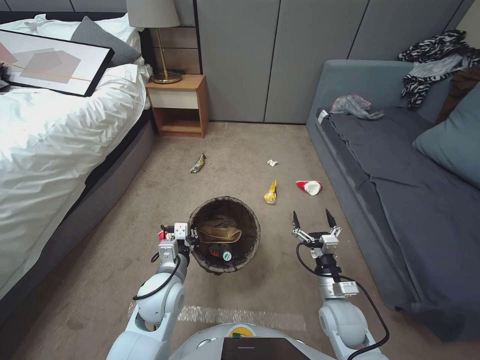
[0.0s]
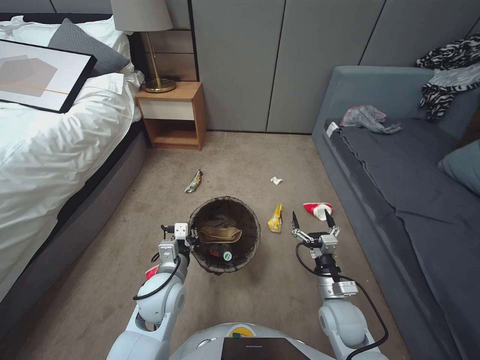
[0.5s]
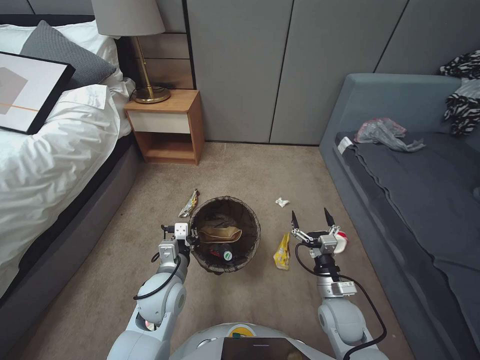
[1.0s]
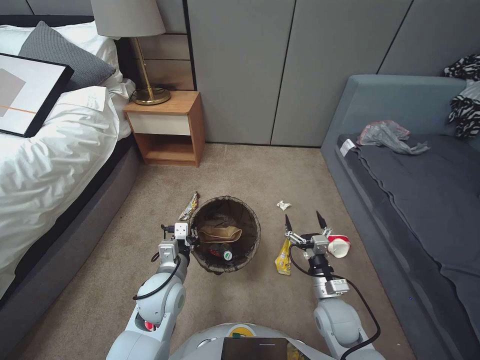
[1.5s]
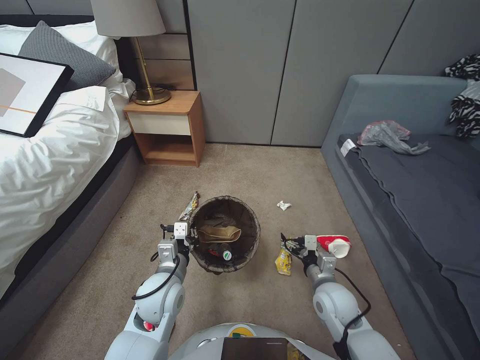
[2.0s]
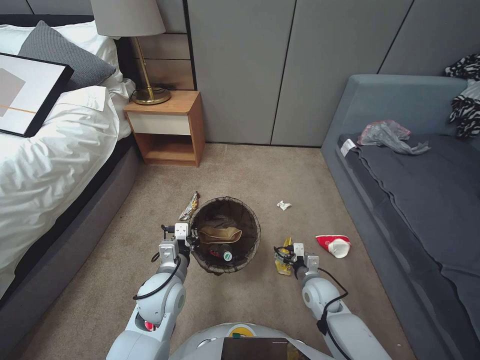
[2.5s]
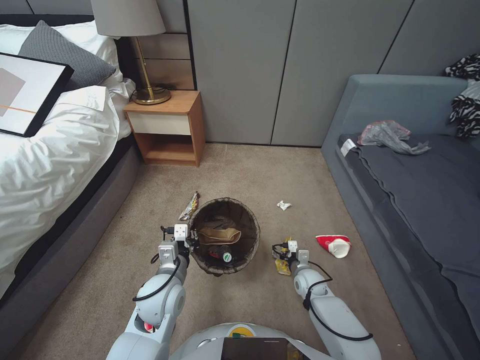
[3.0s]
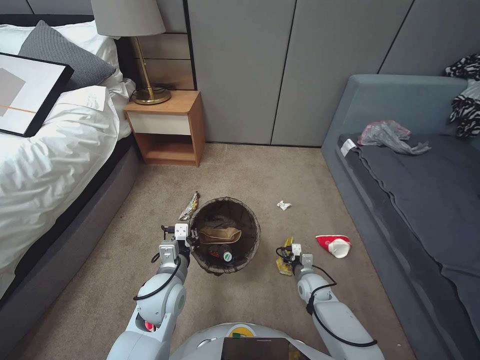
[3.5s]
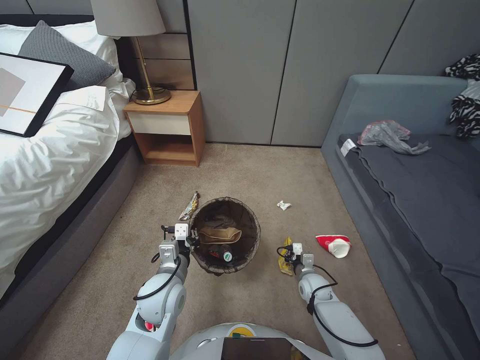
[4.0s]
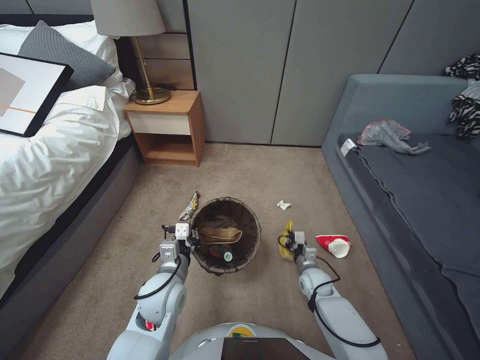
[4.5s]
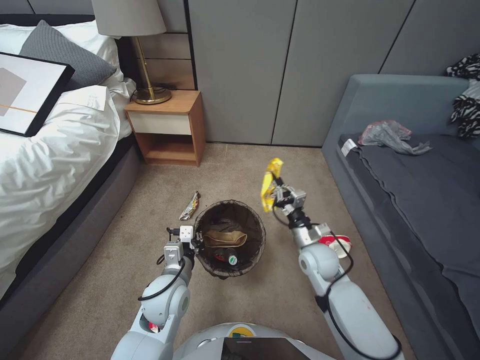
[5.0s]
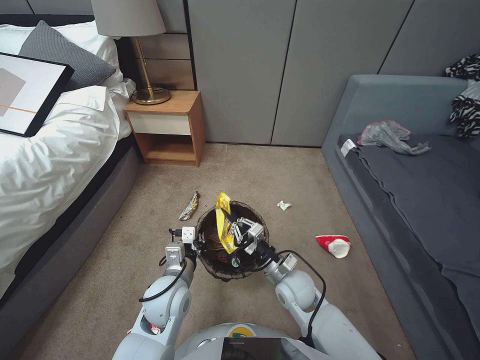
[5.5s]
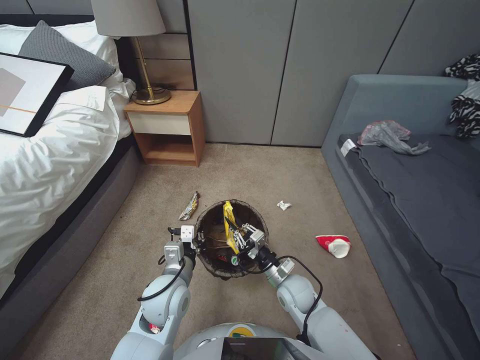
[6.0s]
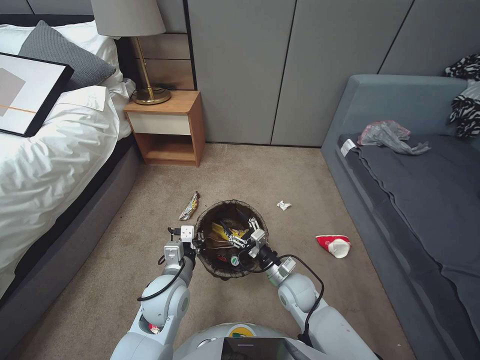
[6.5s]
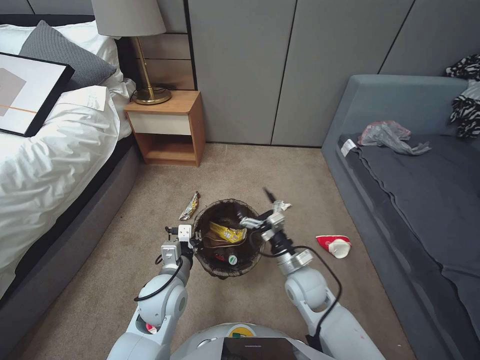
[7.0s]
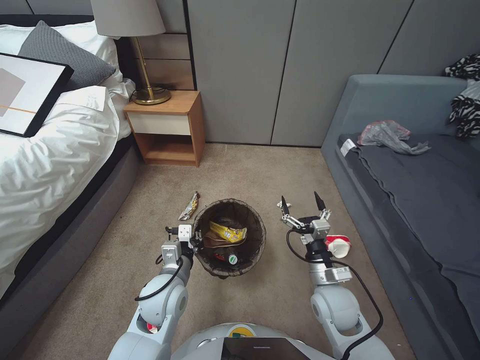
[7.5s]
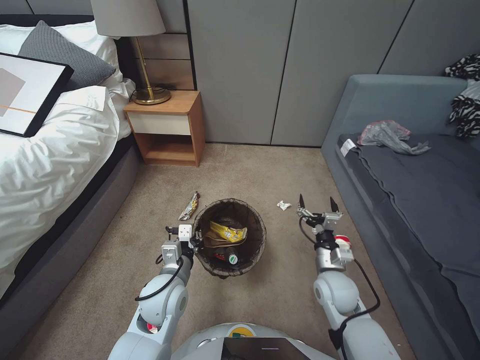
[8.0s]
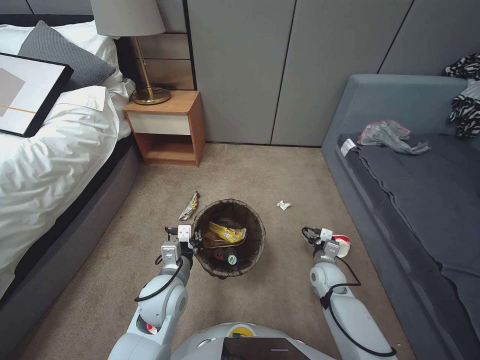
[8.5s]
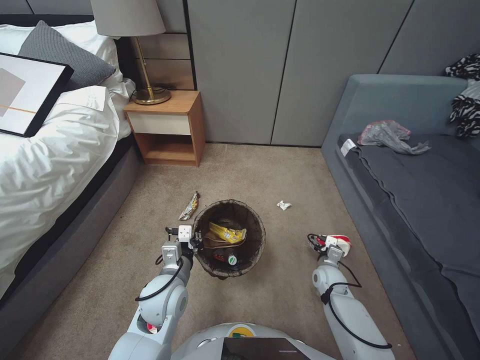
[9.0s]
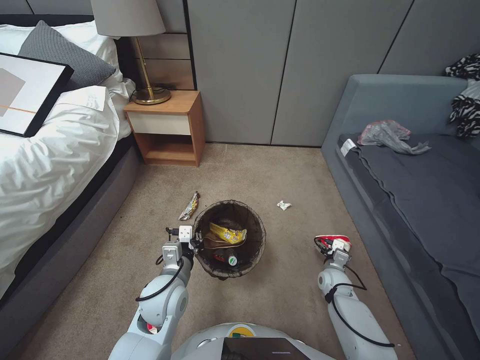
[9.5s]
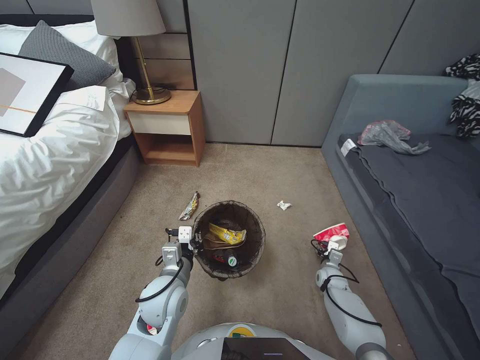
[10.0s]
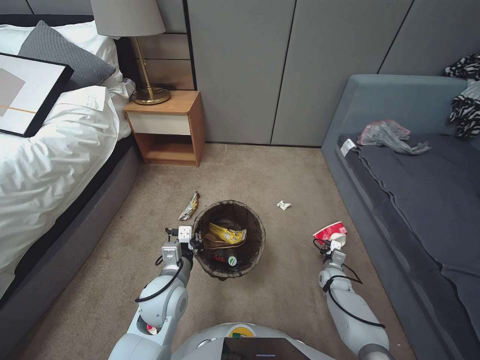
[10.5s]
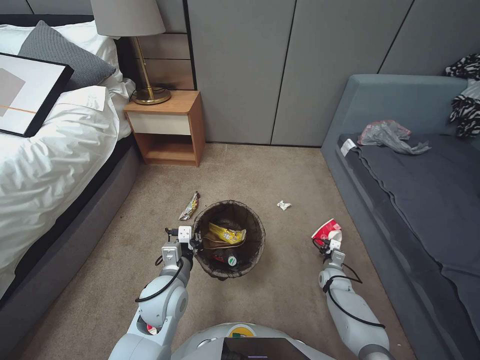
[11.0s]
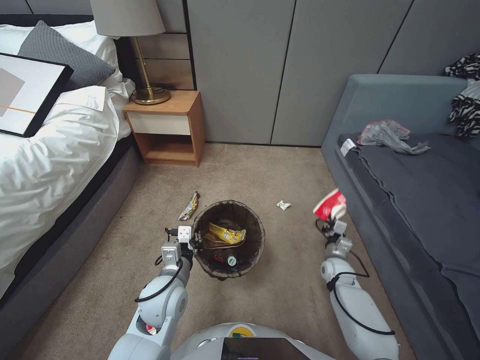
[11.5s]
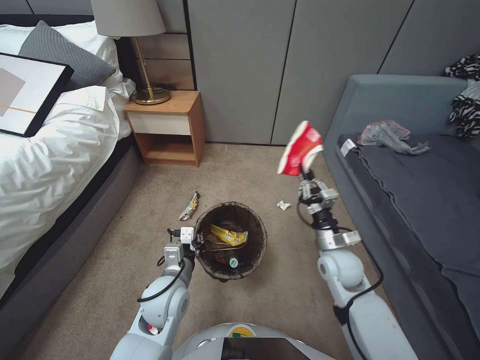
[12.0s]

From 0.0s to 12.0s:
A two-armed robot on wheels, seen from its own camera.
Task of the whole recording: Pick up the trash bin, then pick up the garbage from the floor and place it into the trash bin.
From 2.0s to 4.0s: The right gripper goes approximately 15 cm downward and forward, and closes.
From 4.0s to 6.0s: The right gripper shifts roughly 15 cm upward and to the left.
From 6.0s to 8.0s: The right gripper heads to the right and upward, covering approximately 10 cm, and opens its fingers.
From 8.0s to 10.0s: The right gripper heads downward, to the right and forward, covering approximately 25 cm.
From 10.0s to 12.0s: The right gripper travels upward by roughly 10 cm, and closes.

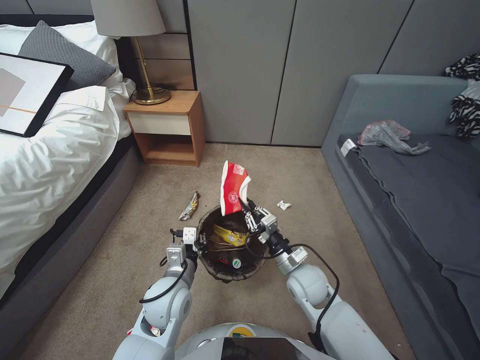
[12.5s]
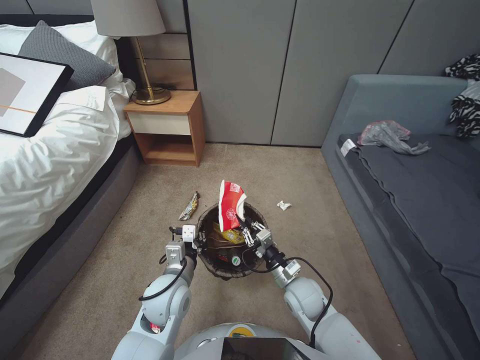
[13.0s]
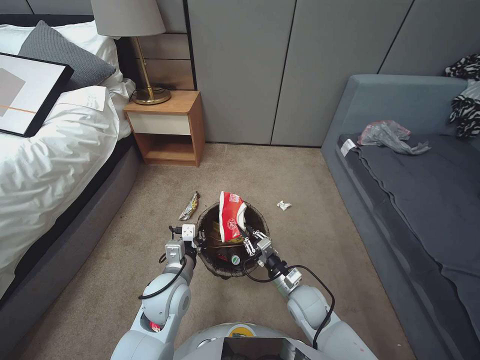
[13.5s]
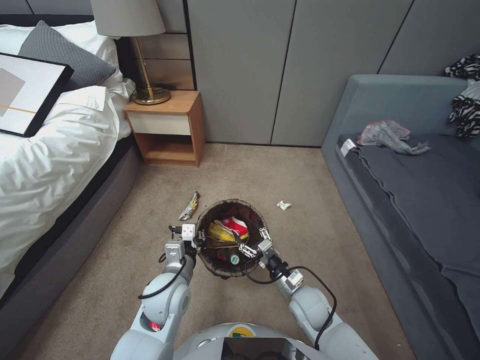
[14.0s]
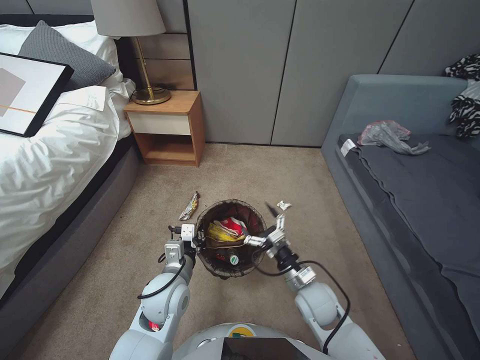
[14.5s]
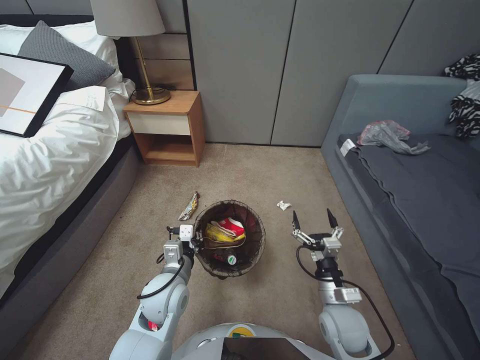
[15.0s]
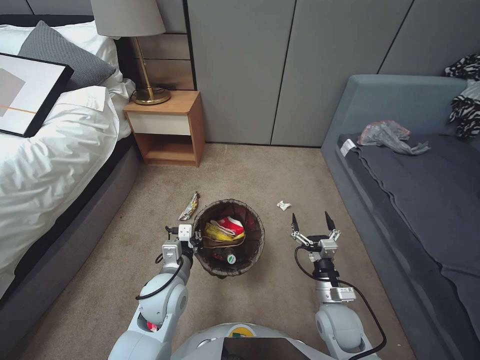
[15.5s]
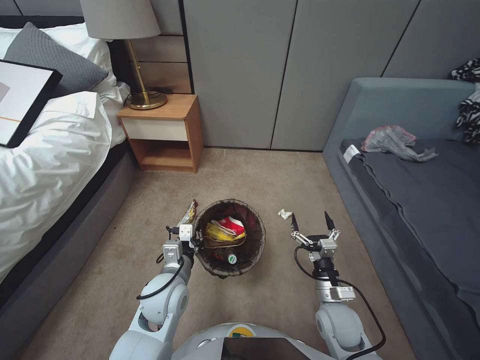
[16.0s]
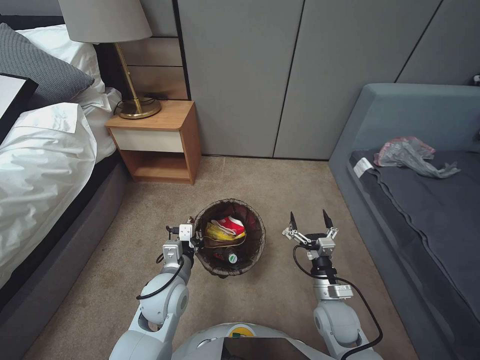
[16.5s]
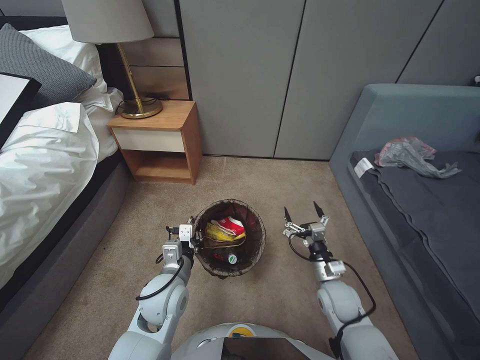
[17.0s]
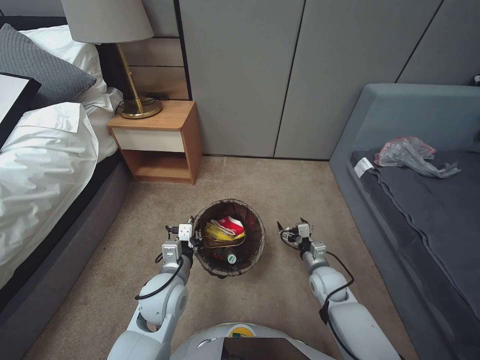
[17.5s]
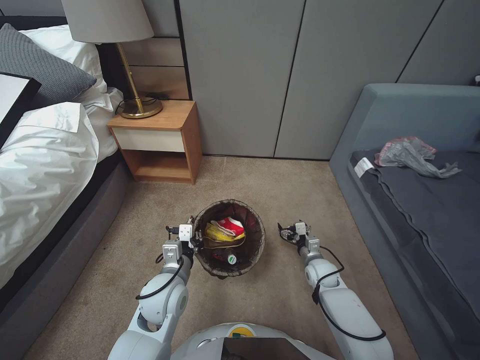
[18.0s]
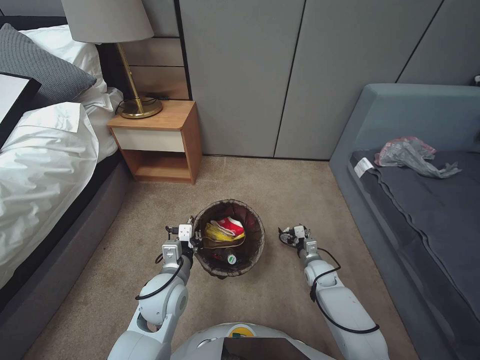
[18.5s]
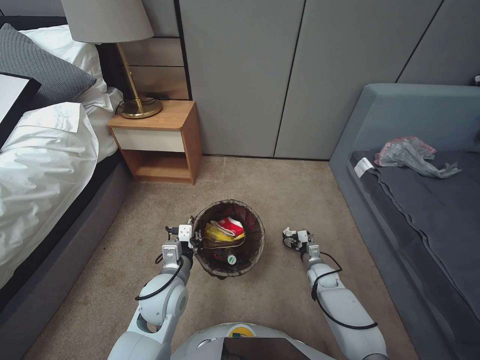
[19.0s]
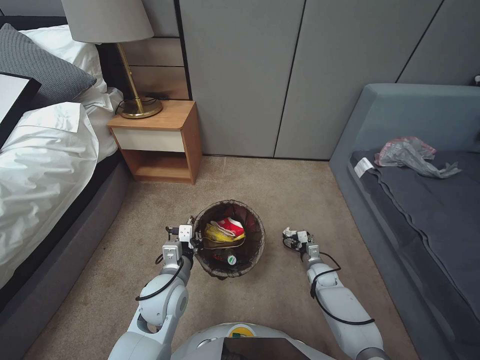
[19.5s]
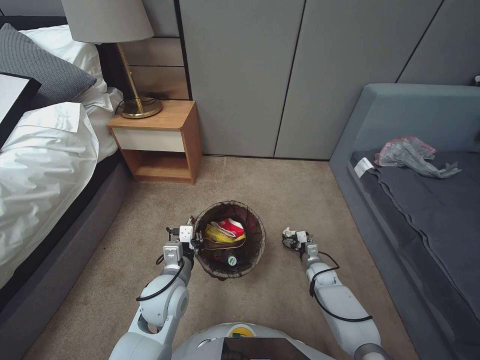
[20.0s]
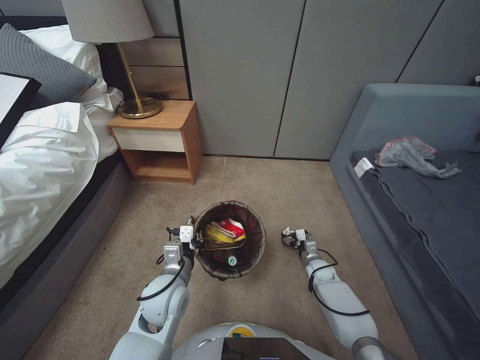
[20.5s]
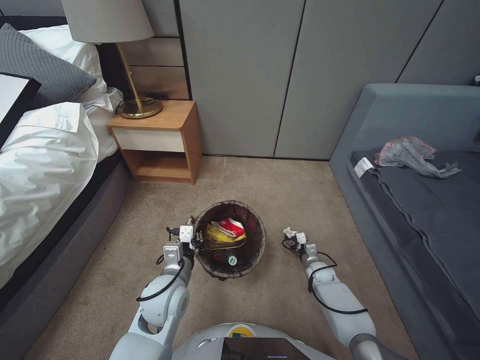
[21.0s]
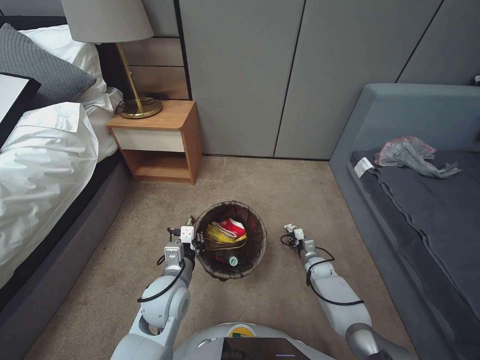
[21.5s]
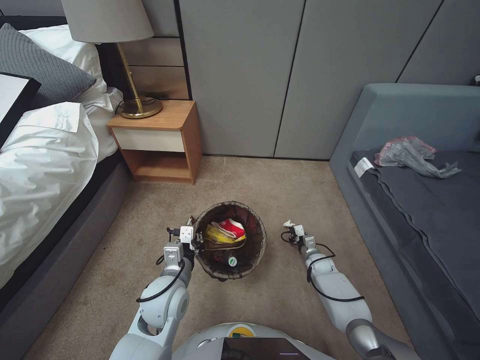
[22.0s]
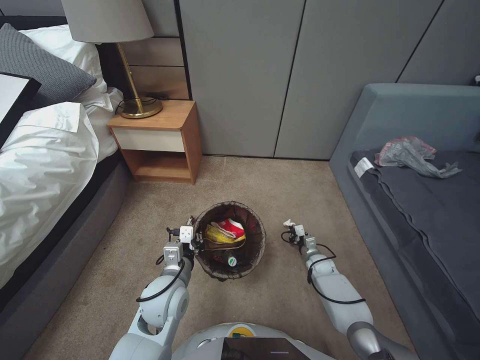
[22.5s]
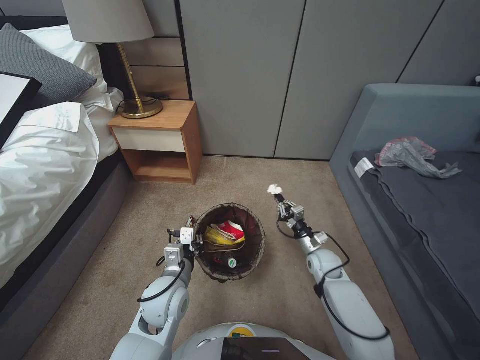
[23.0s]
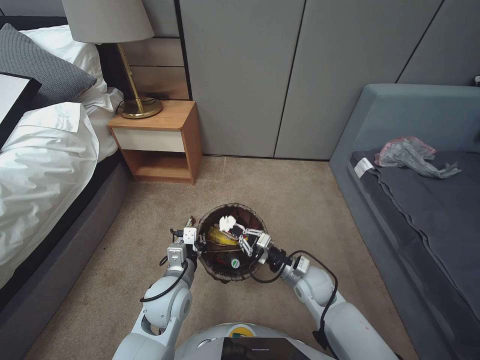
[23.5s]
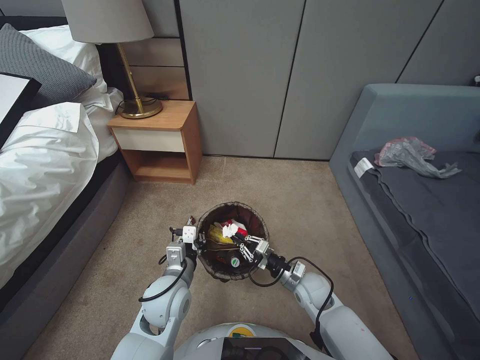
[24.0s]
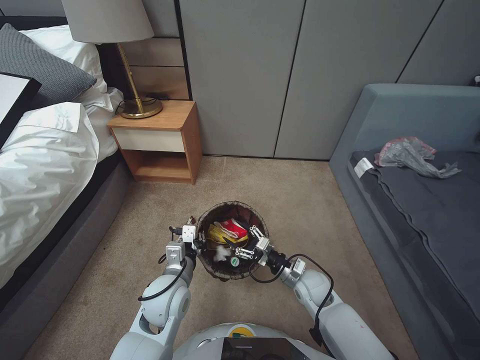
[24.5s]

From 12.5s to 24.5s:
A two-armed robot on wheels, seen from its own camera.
Task of the whole recording: Pick up the trash bin, then pick up the garbage from the floor and place it into the trash bin.
From 12.5s to 14.5s: The right gripper goes some 15 cm downward, to the left and backward, and opens its fingers.
From 14.5s to 16.5s: The right gripper shifts some 5 cm to the right.
From 16.5s to 18.5s: The right gripper travels forward and downward by about 15 cm.
From 18.5s to 20.5s: The right gripper goes roughly 5 cm downward.
From 20.5s to 22.5s: The right gripper closes.
From 22.5s to 24.5s: The right gripper shifts about 20 cm upward, to the left and backward, and opens up.

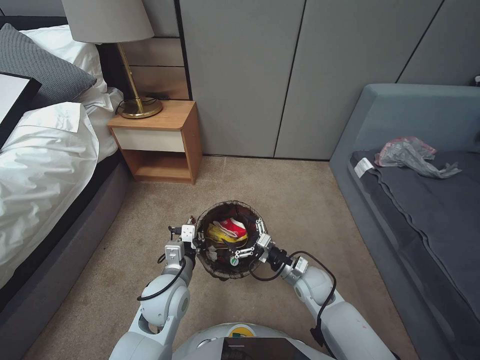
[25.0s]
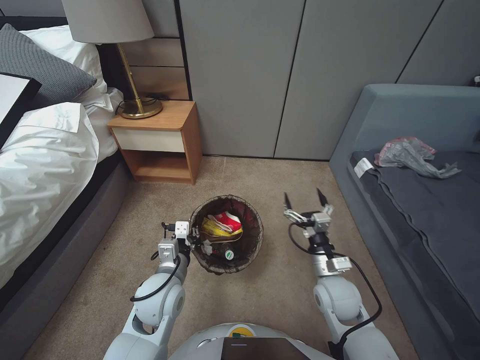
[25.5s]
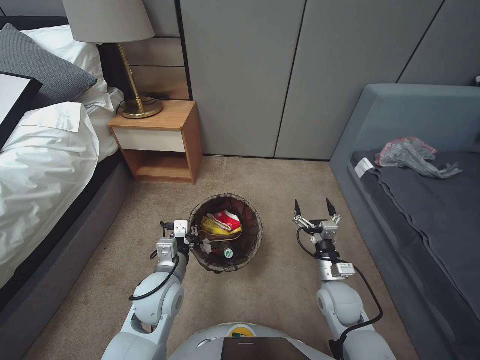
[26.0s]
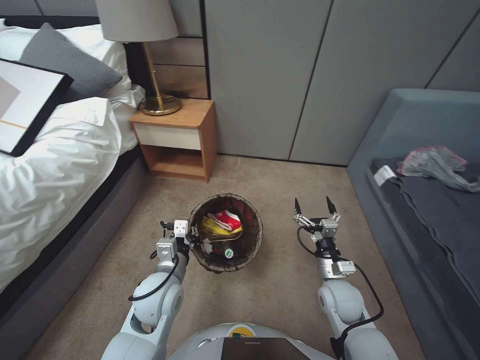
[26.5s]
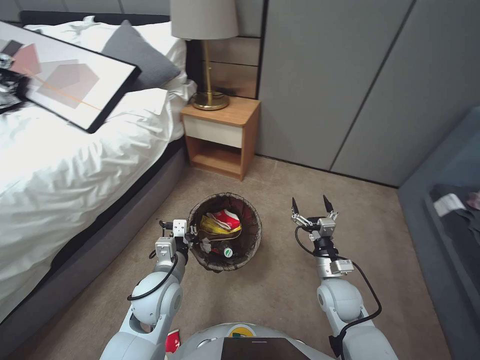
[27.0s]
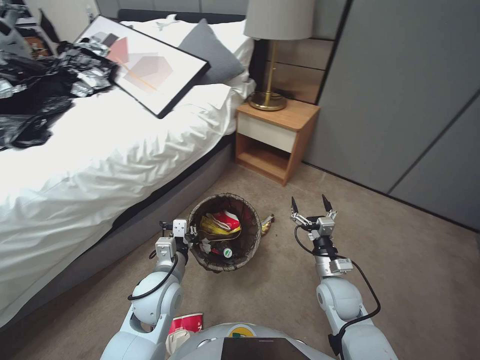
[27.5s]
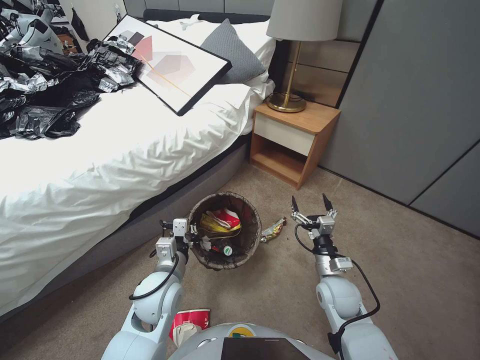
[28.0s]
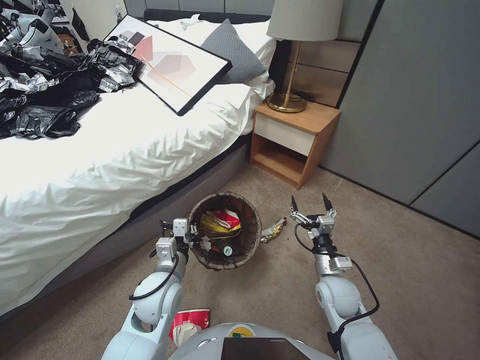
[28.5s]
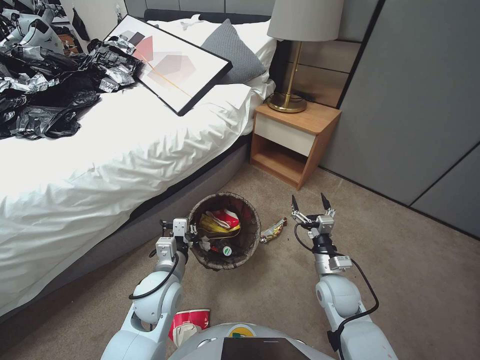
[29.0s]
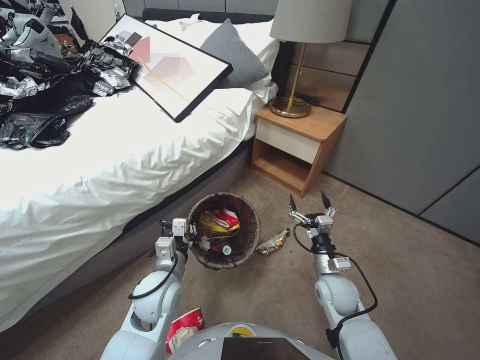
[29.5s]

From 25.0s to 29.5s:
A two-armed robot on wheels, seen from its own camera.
Task of the whole recording: Pick up the trash bin, then pick up the garbage from the floor and place it into the trash bin.
From 25.0s to 27.0s: The right gripper moves about 5 cm.
